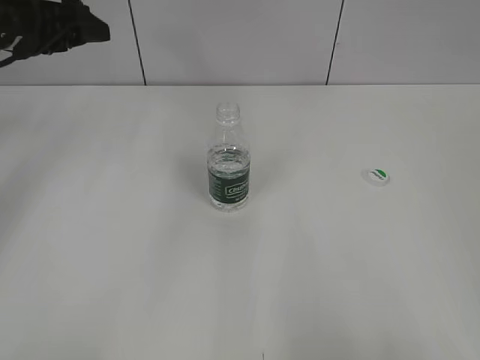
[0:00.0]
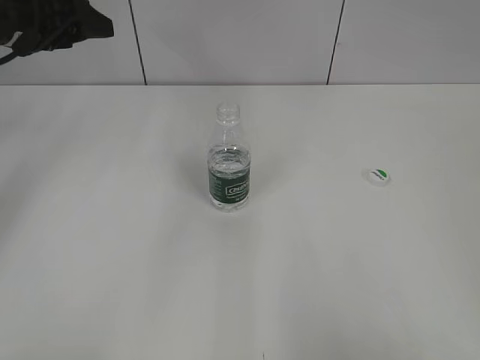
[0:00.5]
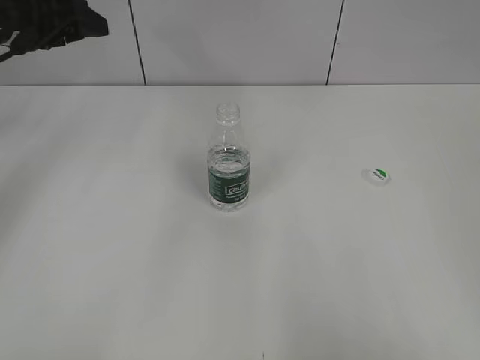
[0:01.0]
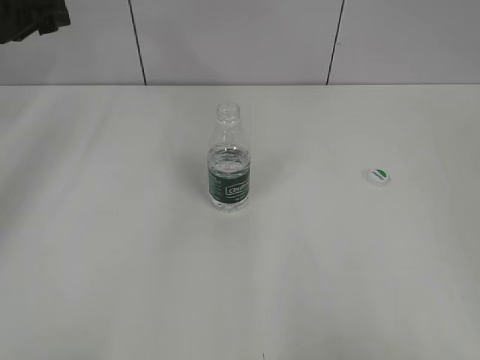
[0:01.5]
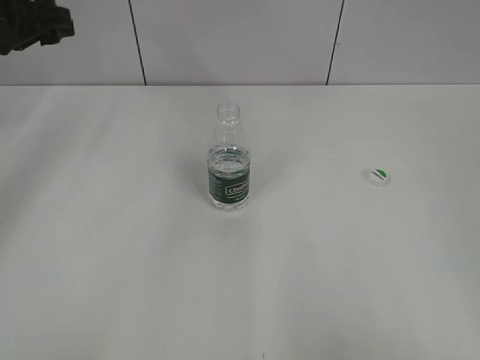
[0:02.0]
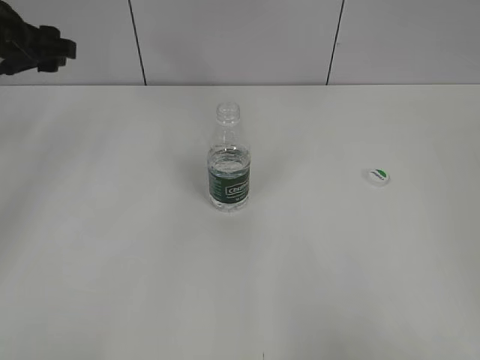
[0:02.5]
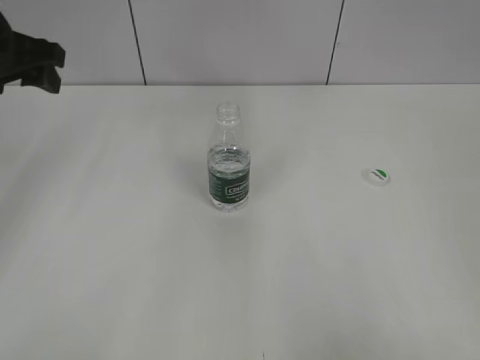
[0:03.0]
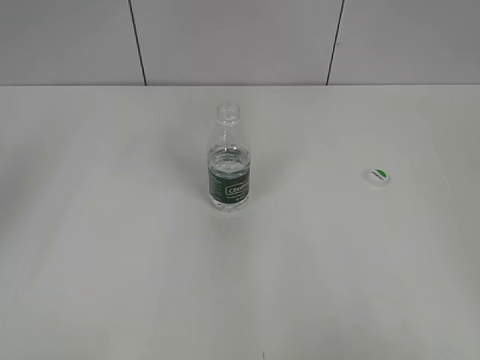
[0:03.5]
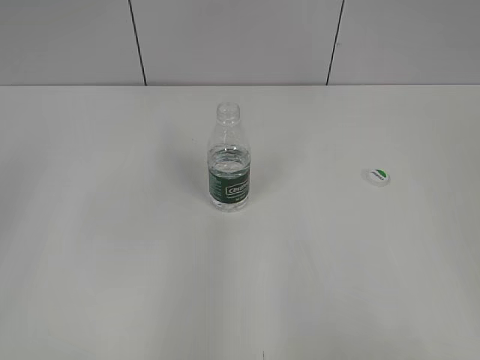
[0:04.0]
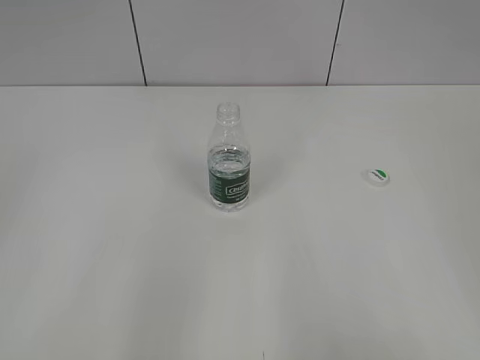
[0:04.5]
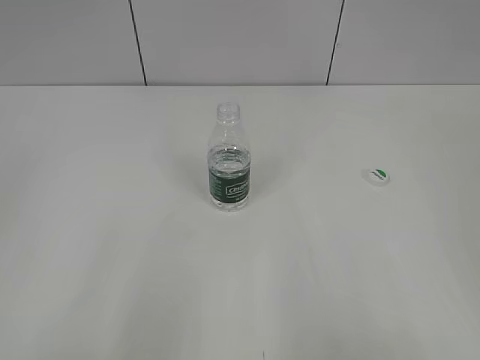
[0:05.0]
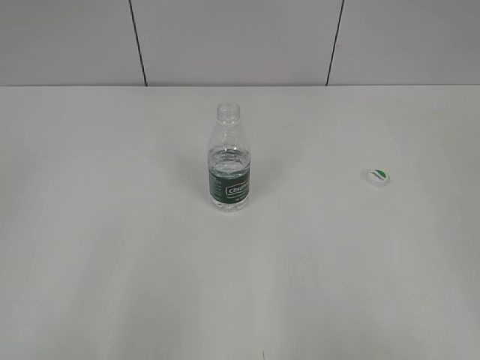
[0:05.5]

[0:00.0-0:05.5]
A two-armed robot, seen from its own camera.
0:00.0 to 0:02.0: The grippers make only small movements.
0:02.0 to 0:03.5: The left gripper heads backward, covering about 15 cm.

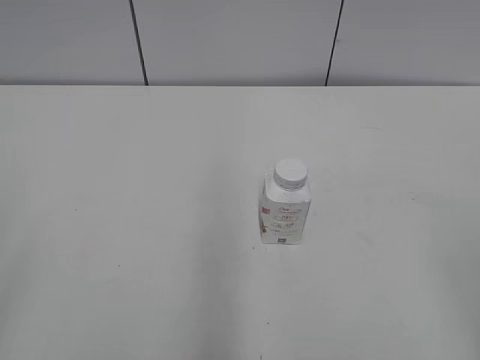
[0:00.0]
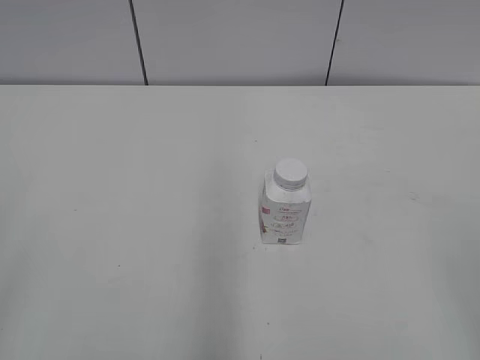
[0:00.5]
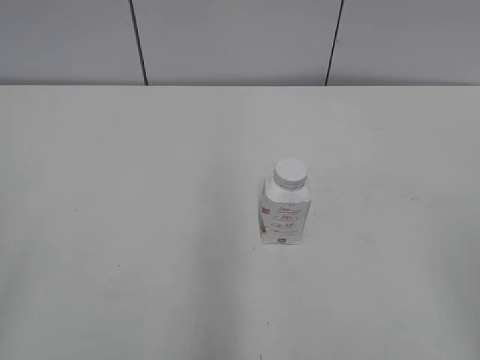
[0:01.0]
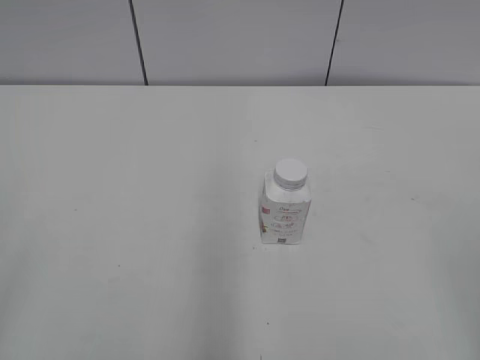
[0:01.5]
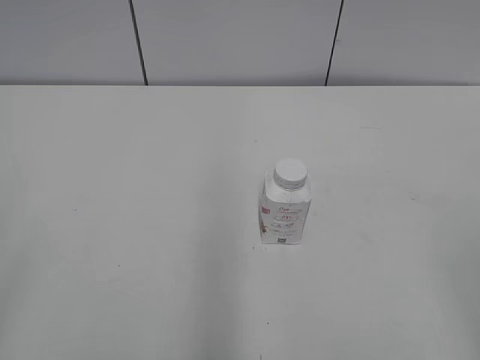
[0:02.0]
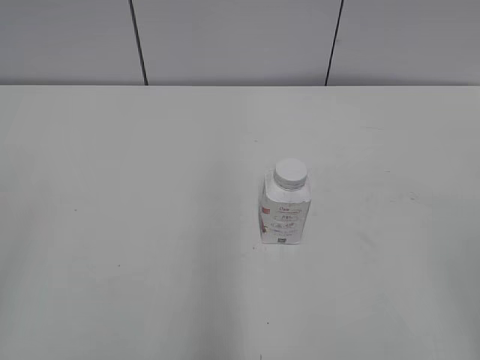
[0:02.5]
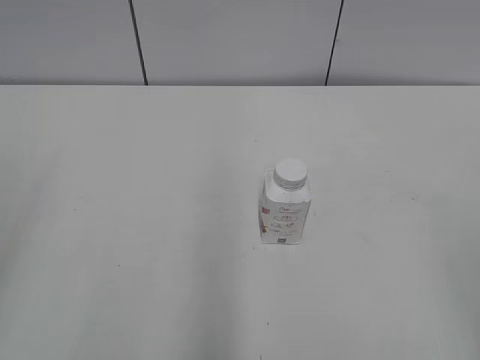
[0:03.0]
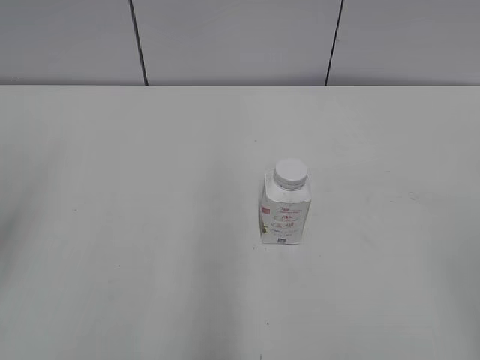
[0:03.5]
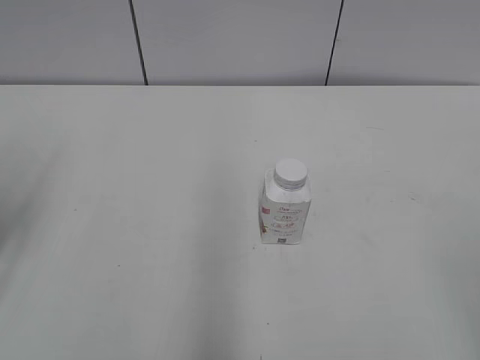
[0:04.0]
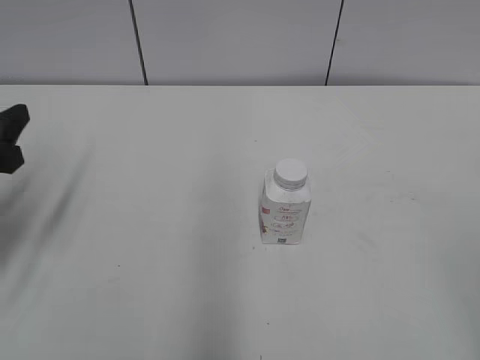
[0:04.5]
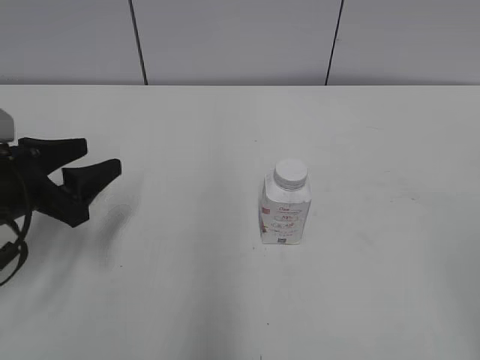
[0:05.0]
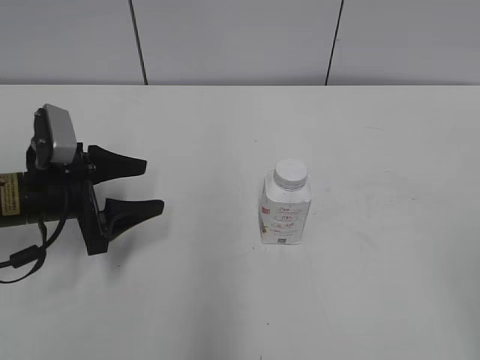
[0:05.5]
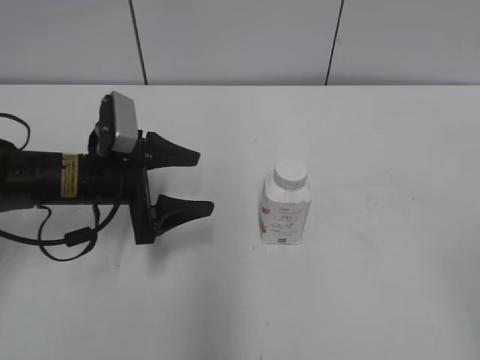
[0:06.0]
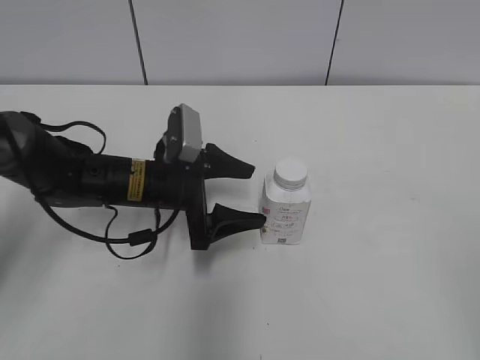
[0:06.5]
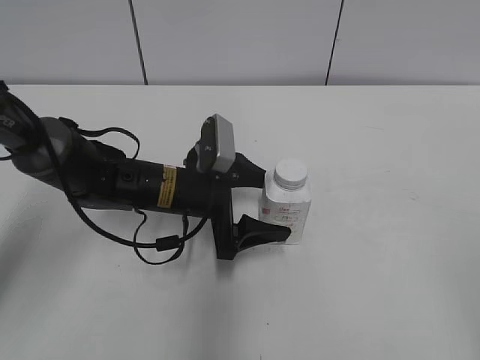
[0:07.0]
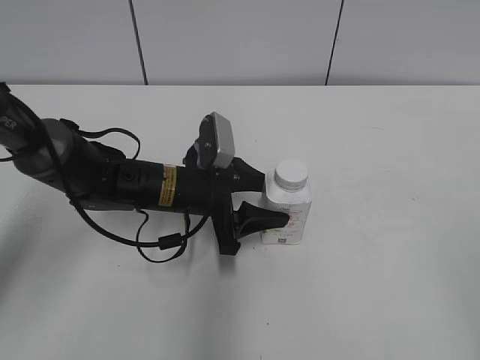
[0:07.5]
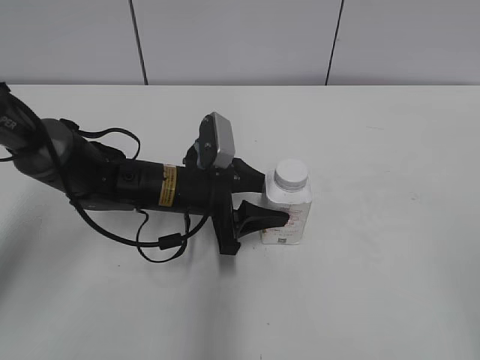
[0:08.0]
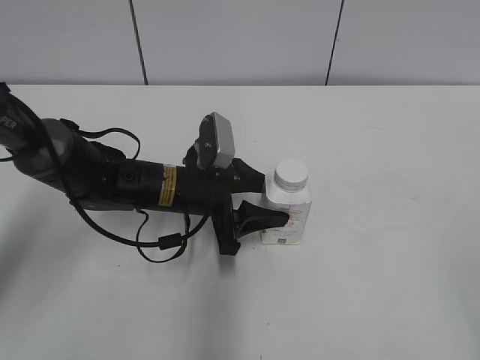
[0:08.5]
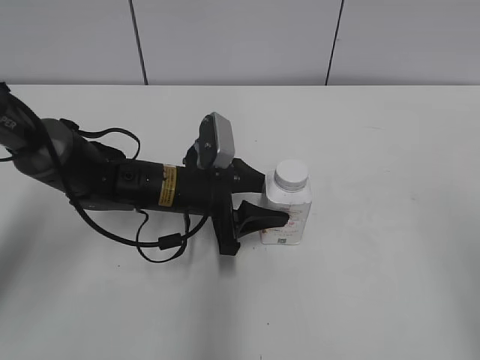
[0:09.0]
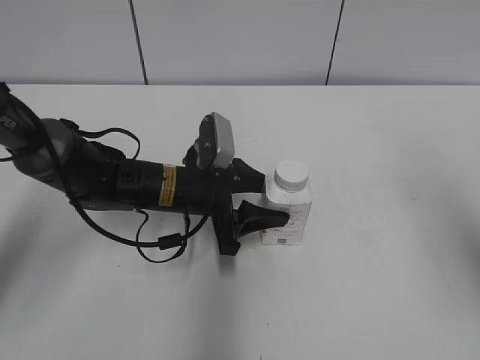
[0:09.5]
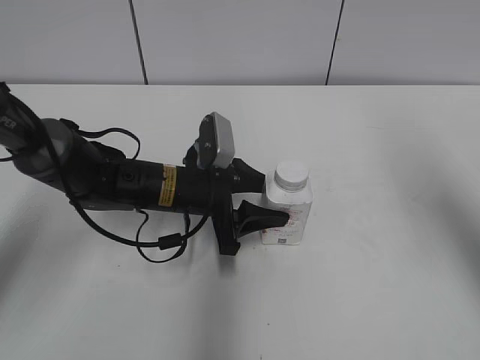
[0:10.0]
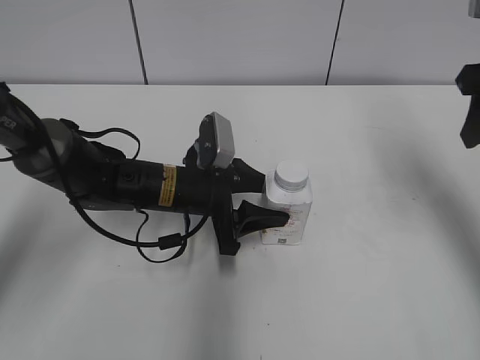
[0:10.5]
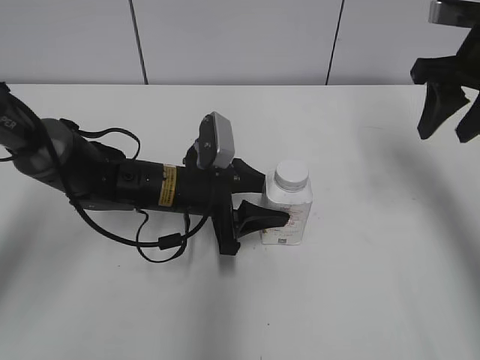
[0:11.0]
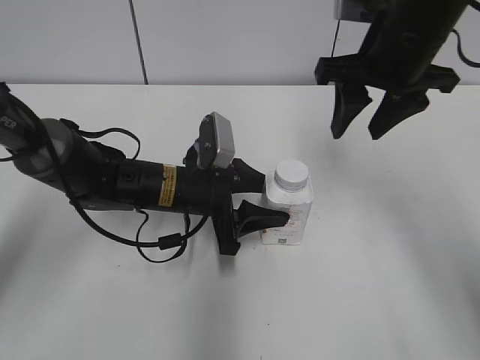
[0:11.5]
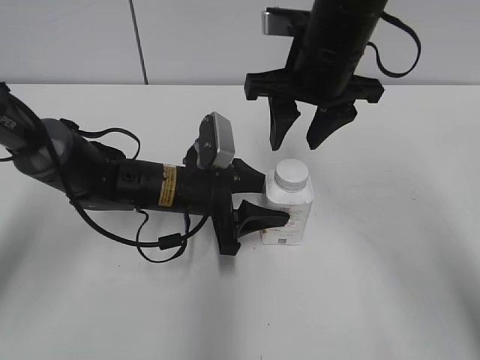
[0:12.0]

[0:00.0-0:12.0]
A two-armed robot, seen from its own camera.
Step, 0:00.0 to 0:07.5: Grab the Yili Changqing with the left hand.
0:02.0 to 0:04.0: The left gripper is displaced forward by some 20 cm.
0:04.0 to 0:06.0: The left gripper is displaced to the right, downward and forward by about 20 cm, and opens up.
0:06.0 to 0:08.0: The left gripper moves to the right, roughly 10 cm, and closes.
0:08.0 to 0:10.0: The right gripper is displaced forward by approximately 25 cm, and closes up.
0:10.0 to 0:12.0: The right gripper is displaced to the left and forward by roughly 25 cm.

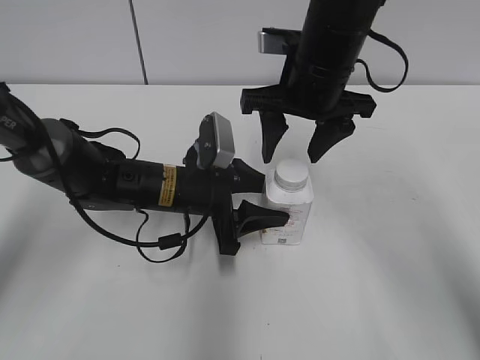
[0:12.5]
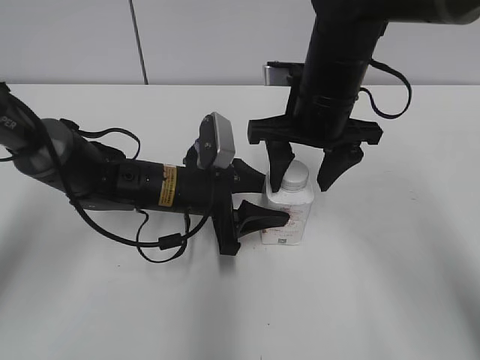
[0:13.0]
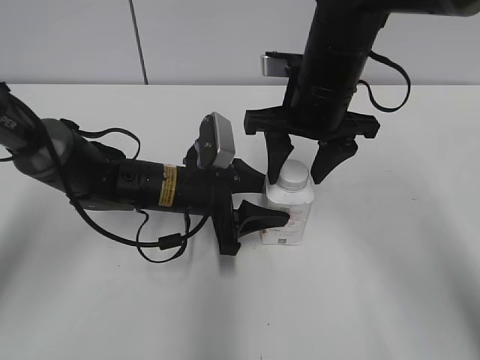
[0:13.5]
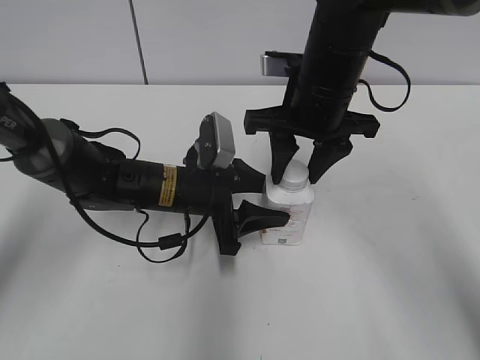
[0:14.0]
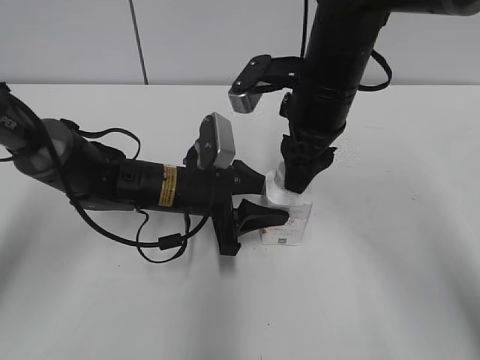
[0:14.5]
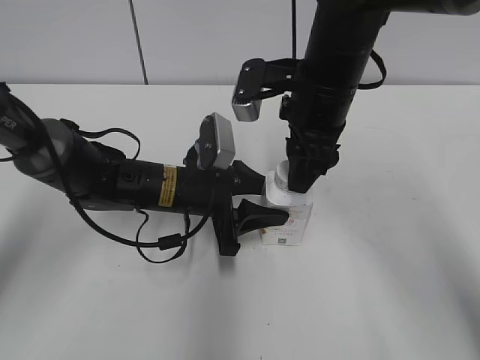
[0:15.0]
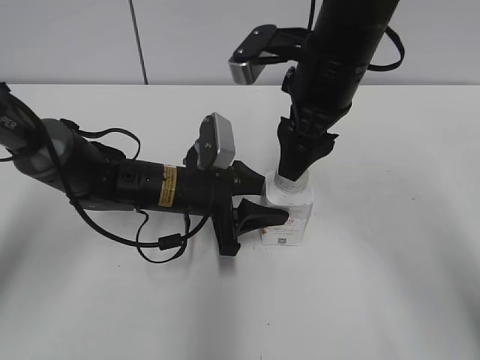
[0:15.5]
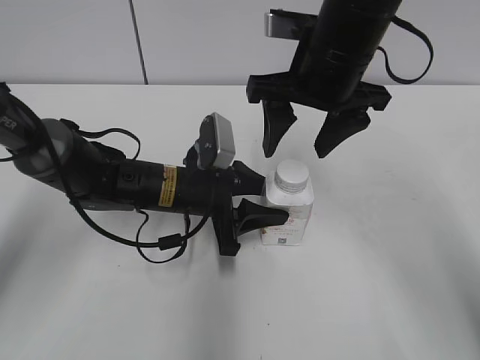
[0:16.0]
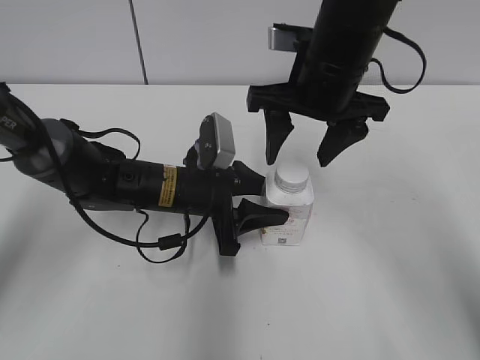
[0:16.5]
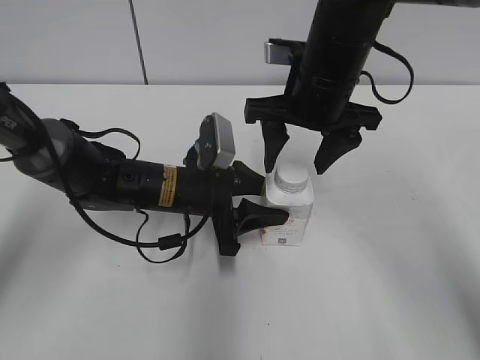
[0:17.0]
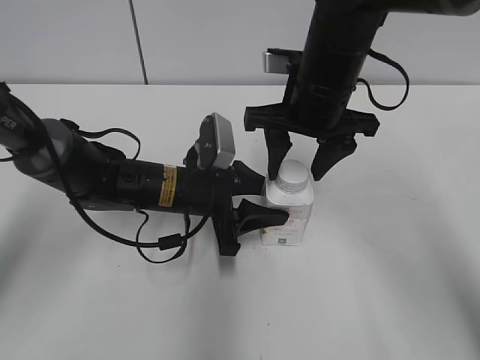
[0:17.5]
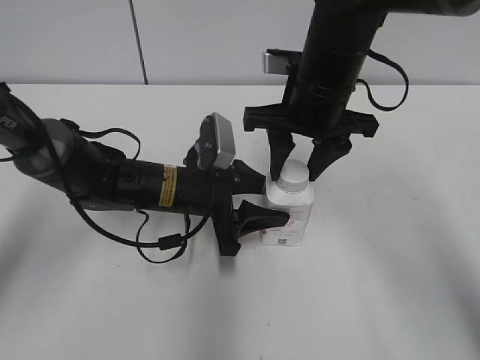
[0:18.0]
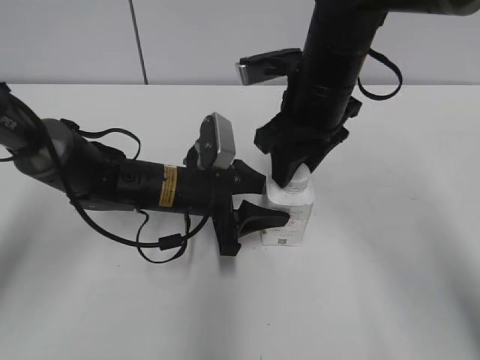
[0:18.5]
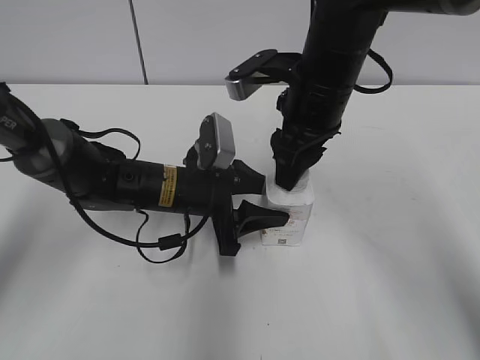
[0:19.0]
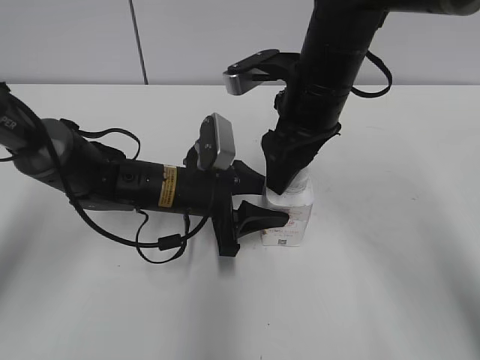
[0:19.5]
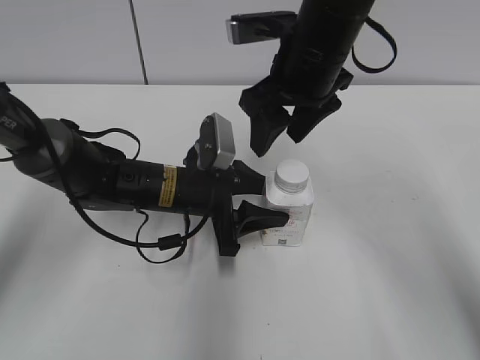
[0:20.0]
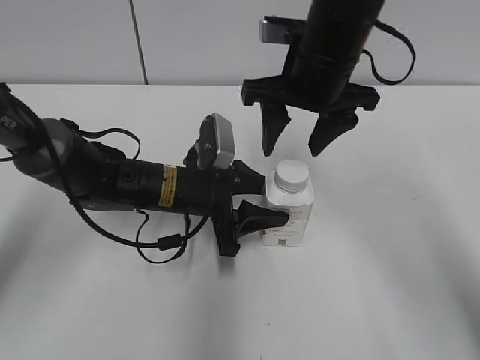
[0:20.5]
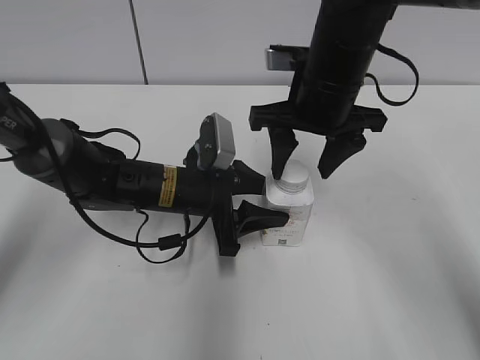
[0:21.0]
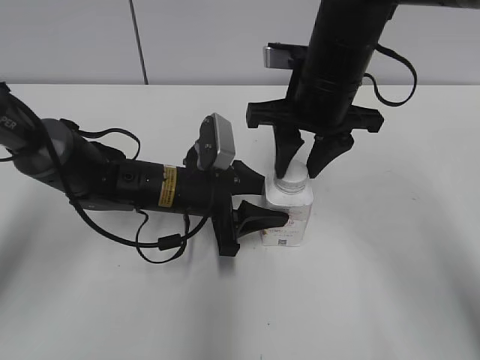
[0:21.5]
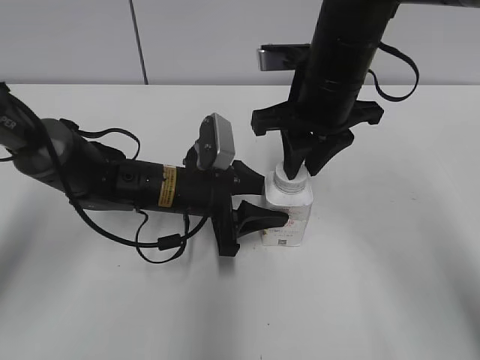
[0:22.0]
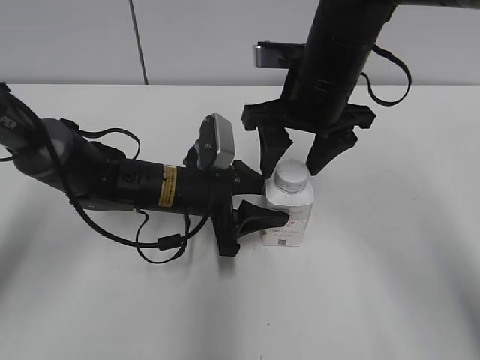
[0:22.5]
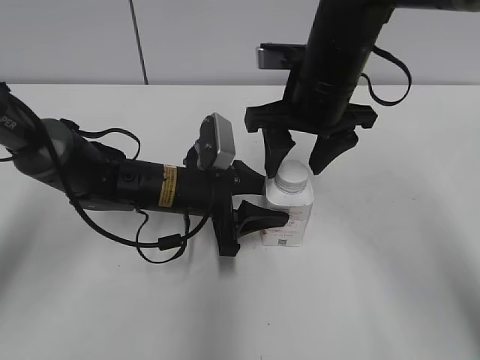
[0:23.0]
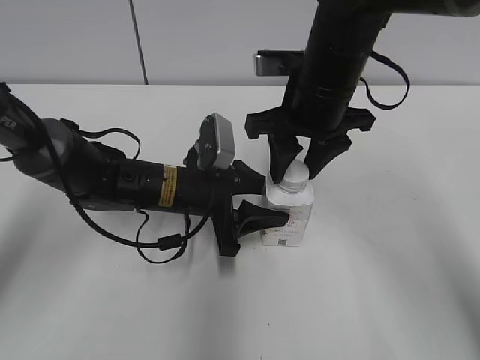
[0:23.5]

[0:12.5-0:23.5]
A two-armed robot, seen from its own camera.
0:12.5 to 0:14.5: The right gripper closes.
0:14.5 to 0:16.0: The right gripper opens up.
0:16.0 to 0:18.0: The right gripper closes up.
0:18.0 to 0:20.0: The right gripper opens up.
0:20.0 to 0:21.5: The right gripper closes up.
0:21.5 to 0:23.5: The right gripper opens, then closes once more.
